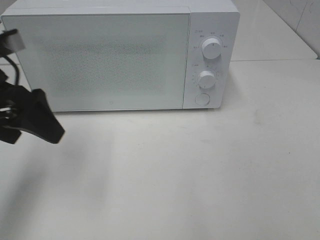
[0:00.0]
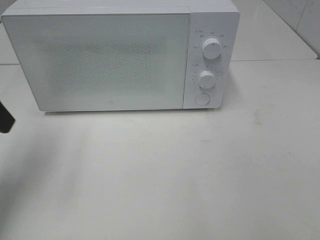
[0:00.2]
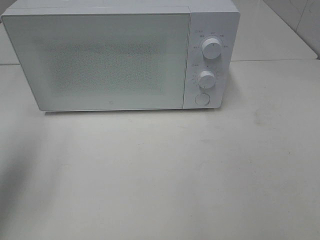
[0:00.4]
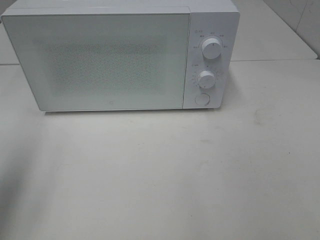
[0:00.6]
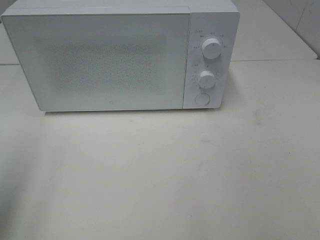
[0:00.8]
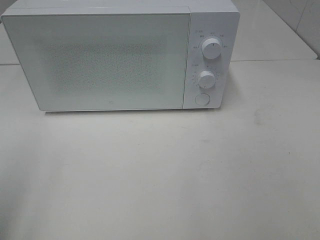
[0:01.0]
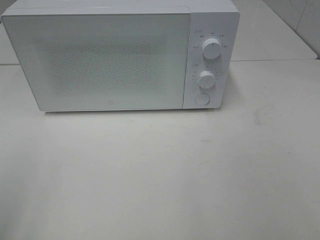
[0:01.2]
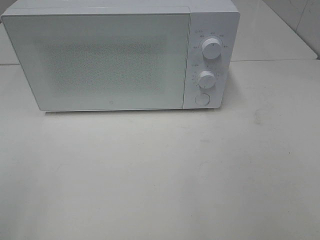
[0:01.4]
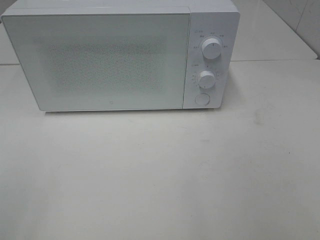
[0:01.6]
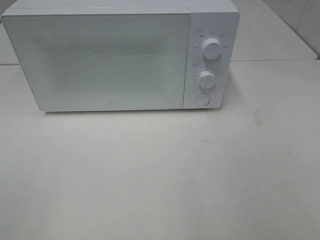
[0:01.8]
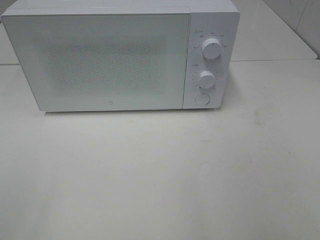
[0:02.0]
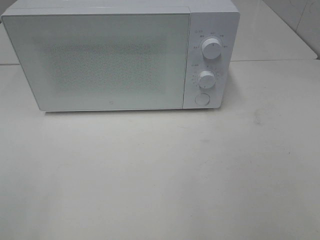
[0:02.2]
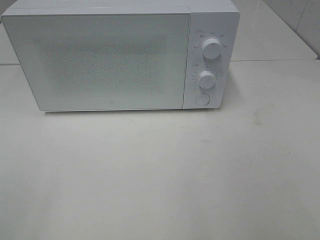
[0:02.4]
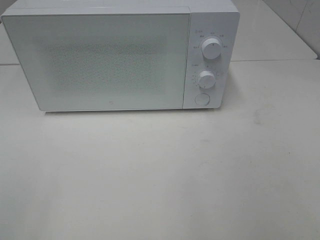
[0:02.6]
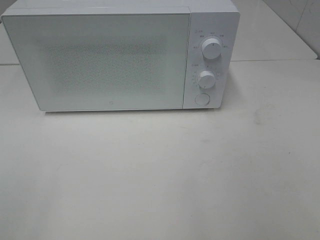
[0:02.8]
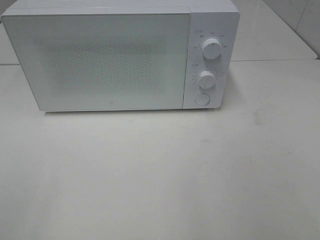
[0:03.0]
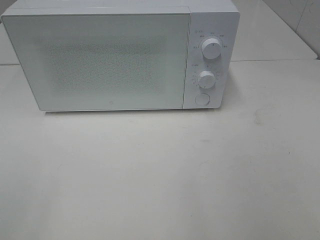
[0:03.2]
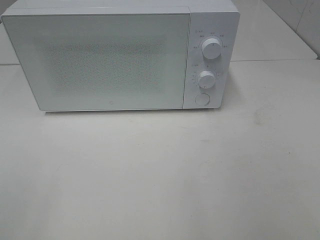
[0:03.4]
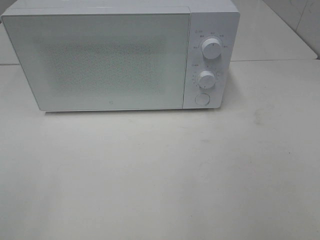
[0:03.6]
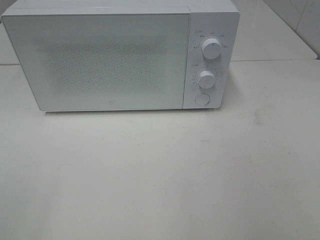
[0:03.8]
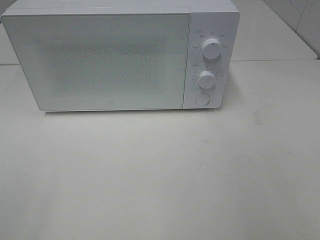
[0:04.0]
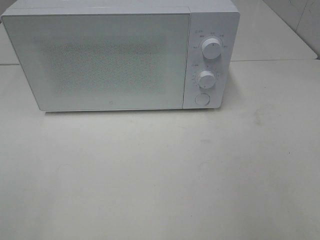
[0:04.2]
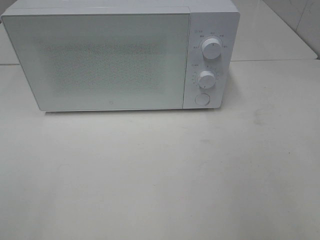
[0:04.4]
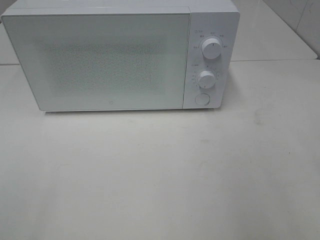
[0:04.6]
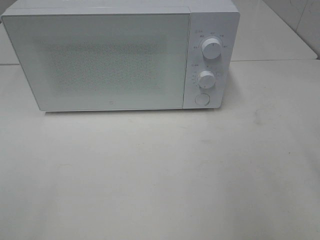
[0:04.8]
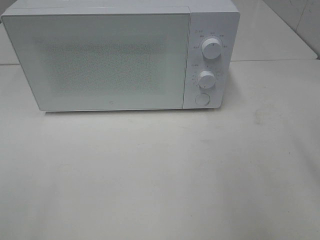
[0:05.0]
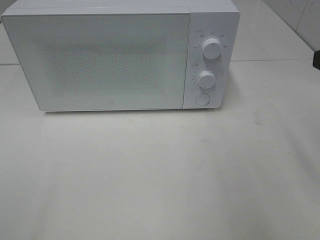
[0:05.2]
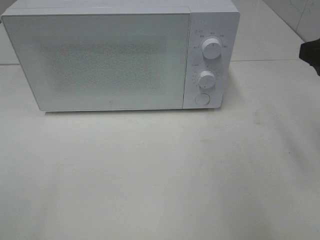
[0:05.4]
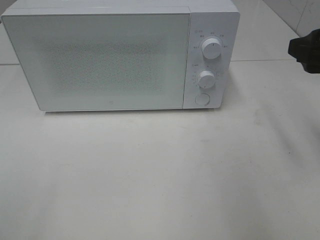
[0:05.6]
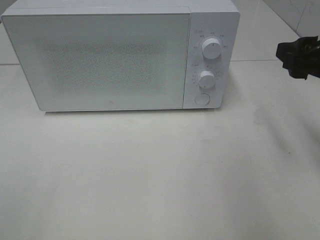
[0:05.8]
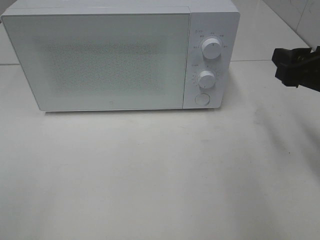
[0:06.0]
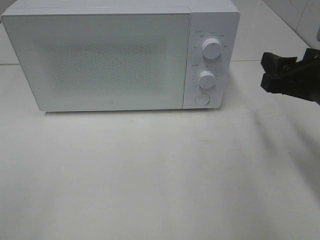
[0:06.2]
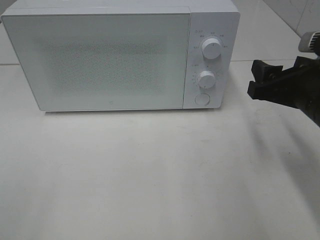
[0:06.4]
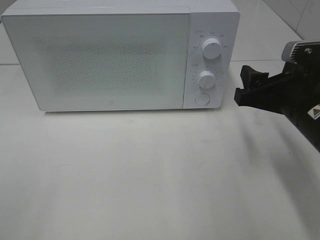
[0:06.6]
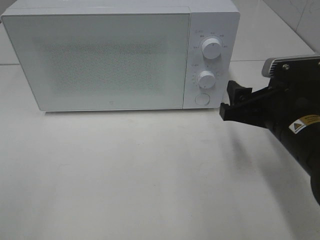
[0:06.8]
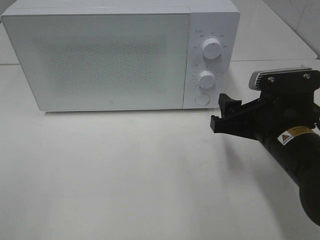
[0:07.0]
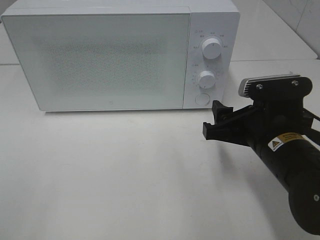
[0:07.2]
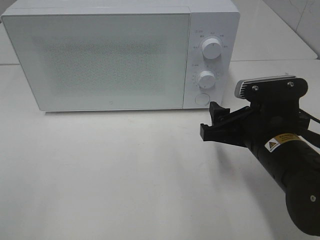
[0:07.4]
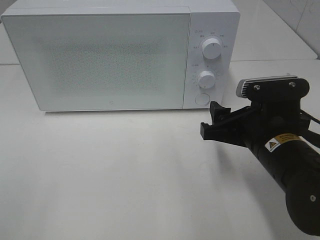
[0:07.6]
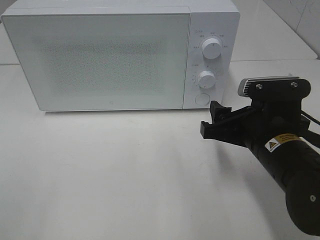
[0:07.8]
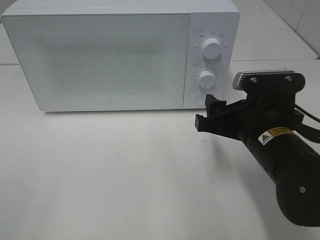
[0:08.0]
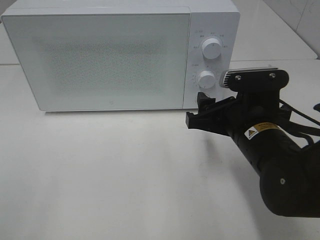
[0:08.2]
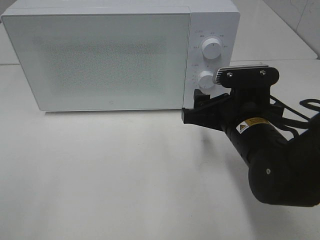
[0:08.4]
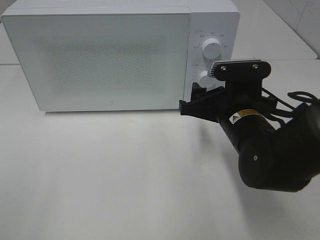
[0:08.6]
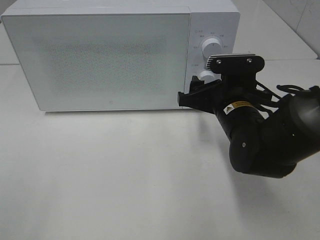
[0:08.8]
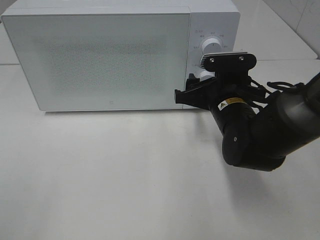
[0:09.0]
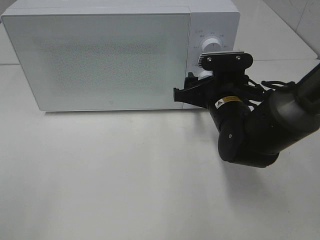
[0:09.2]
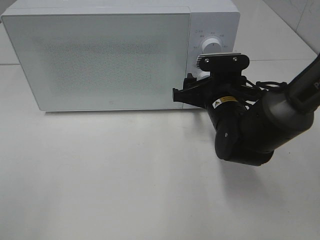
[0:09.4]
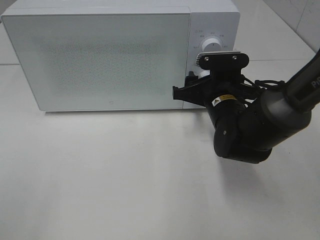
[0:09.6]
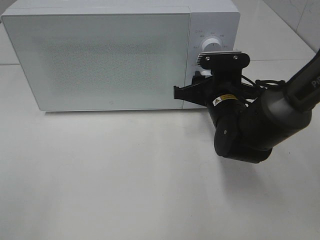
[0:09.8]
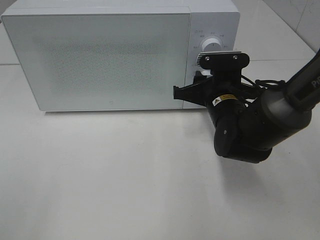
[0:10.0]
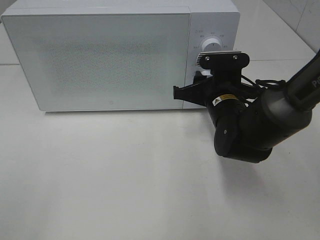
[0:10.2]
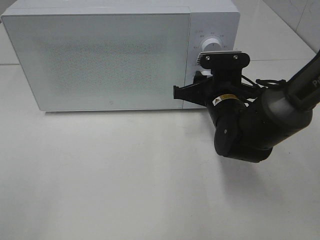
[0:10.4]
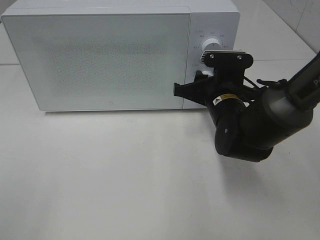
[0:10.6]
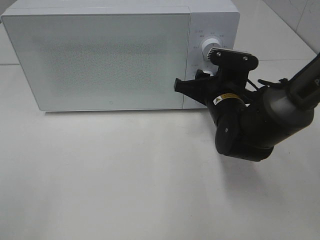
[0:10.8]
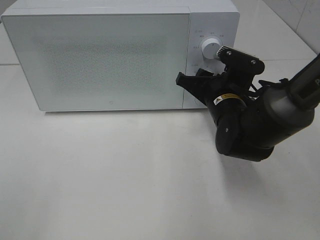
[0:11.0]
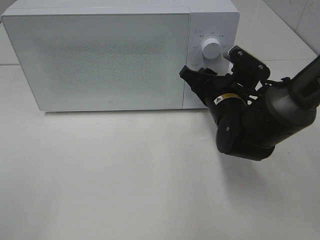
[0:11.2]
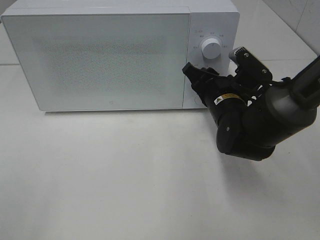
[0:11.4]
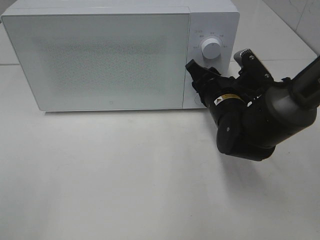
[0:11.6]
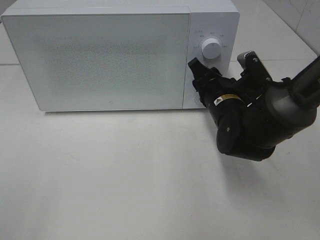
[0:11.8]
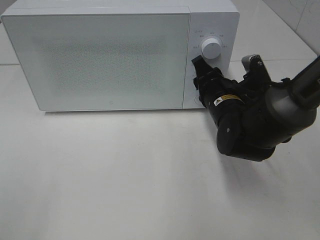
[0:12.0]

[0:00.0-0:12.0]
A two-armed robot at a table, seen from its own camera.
Task of the whole recording: Heat the burger.
0:00.0 to 0:01.6: The left gripper heads backward, covering about 25 cm.
0:04.4 to 0:06.0: The right gripper travels forward and downward by approximately 15 cm.
0:06.0 to 0:07.6: The right gripper shifts approximately 15 cm to the left and downward.
0:07.6 to 0:09.0: The right gripper is displaced forward by approximately 10 cm.
0:09.0 to 0:10.4: The right gripper closes its fingers.

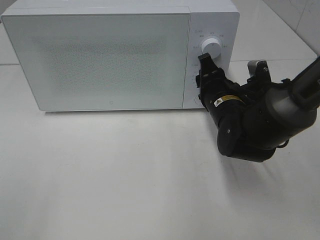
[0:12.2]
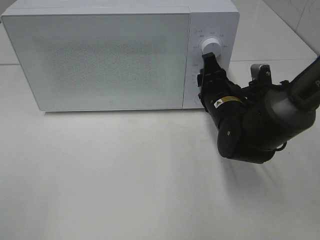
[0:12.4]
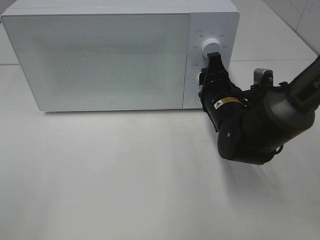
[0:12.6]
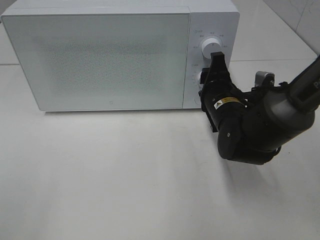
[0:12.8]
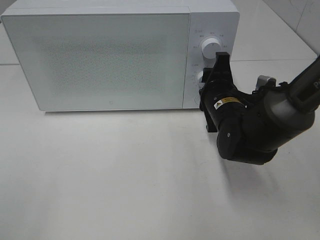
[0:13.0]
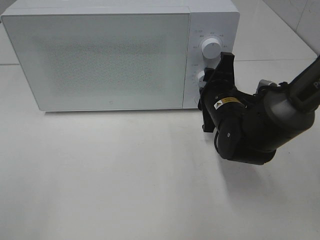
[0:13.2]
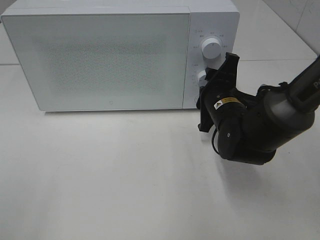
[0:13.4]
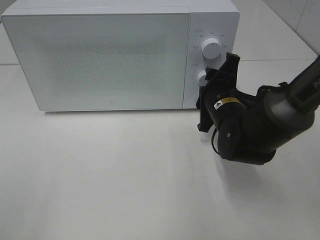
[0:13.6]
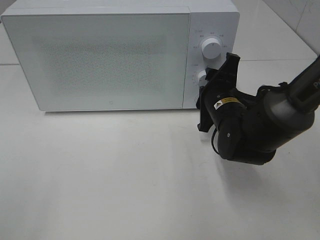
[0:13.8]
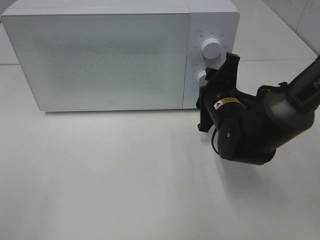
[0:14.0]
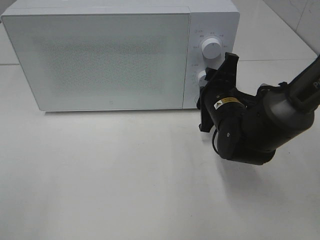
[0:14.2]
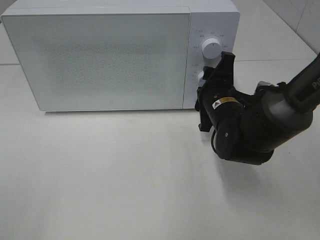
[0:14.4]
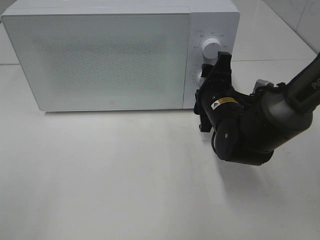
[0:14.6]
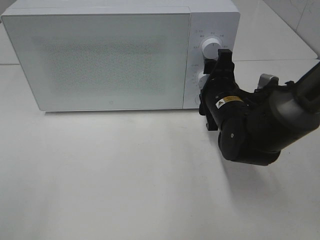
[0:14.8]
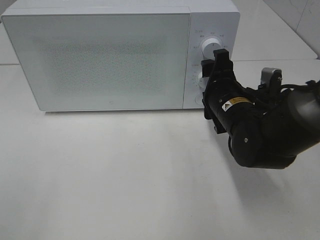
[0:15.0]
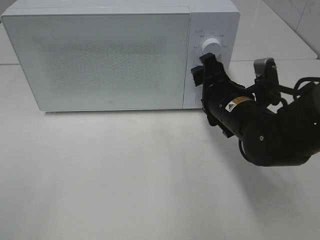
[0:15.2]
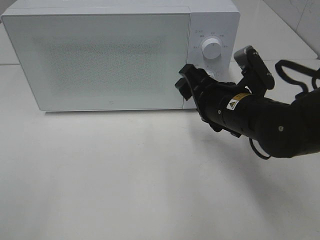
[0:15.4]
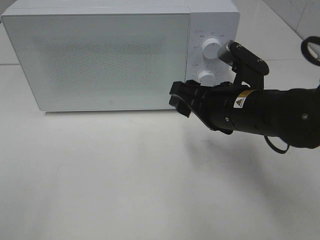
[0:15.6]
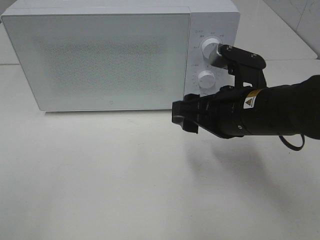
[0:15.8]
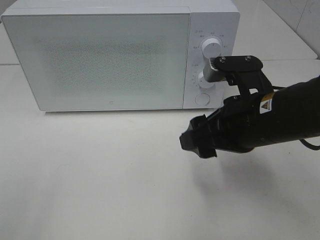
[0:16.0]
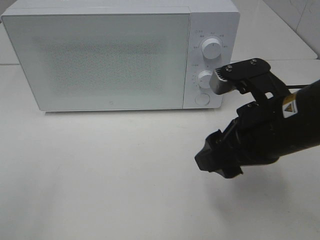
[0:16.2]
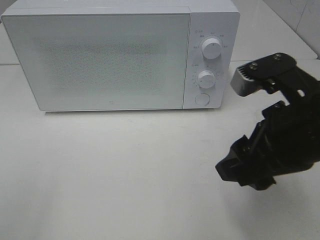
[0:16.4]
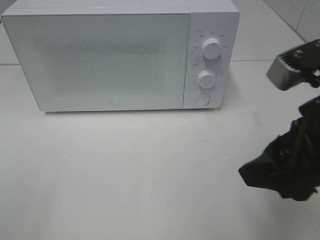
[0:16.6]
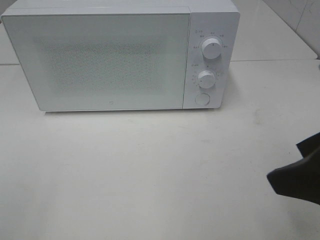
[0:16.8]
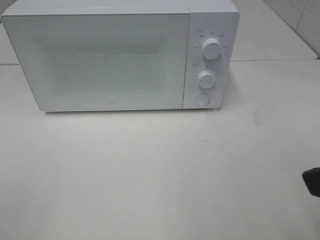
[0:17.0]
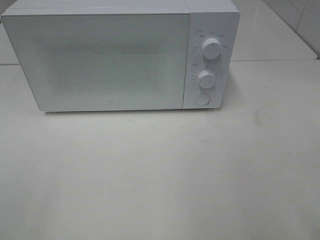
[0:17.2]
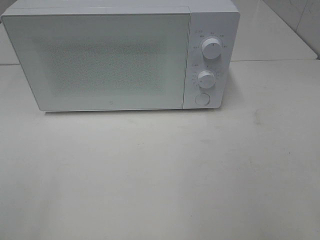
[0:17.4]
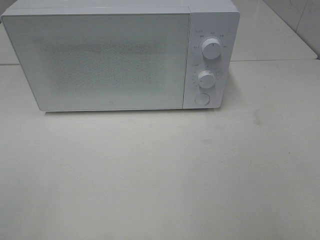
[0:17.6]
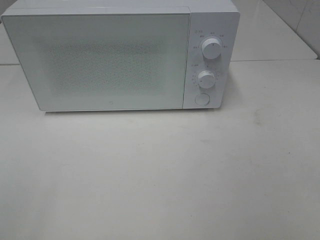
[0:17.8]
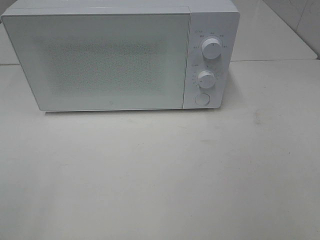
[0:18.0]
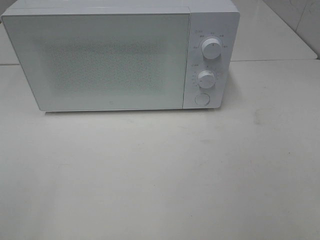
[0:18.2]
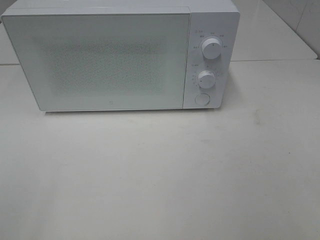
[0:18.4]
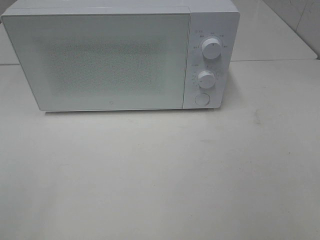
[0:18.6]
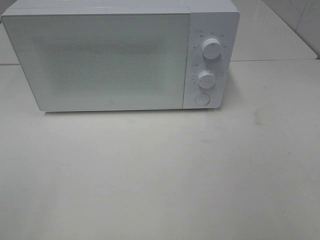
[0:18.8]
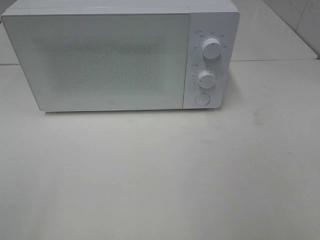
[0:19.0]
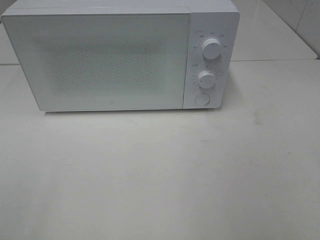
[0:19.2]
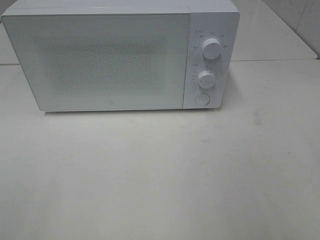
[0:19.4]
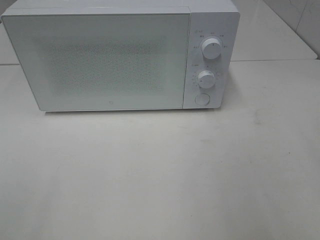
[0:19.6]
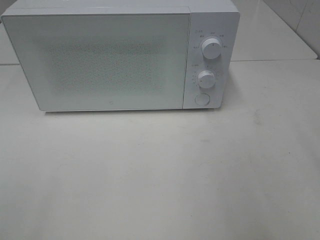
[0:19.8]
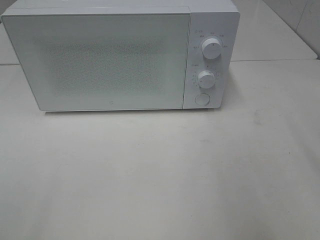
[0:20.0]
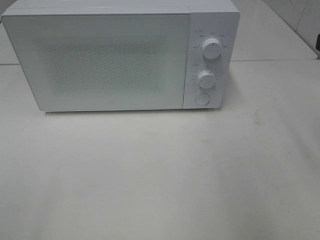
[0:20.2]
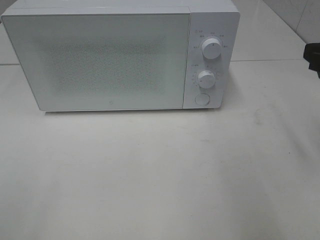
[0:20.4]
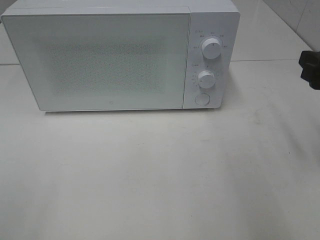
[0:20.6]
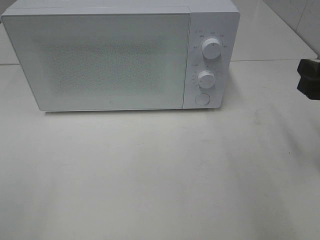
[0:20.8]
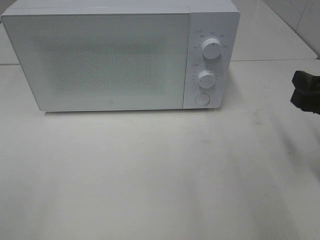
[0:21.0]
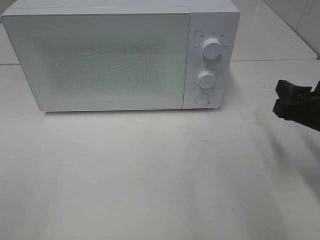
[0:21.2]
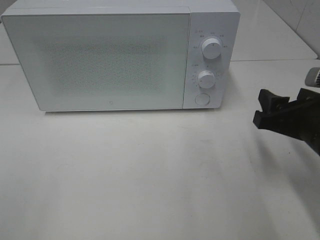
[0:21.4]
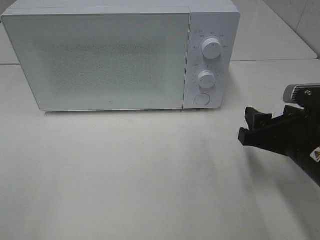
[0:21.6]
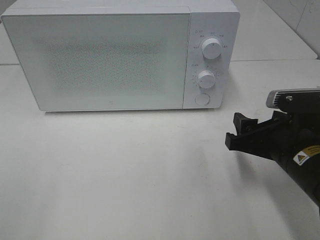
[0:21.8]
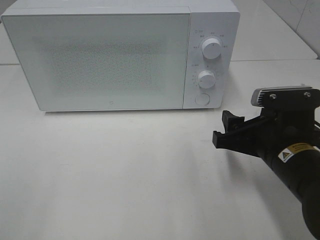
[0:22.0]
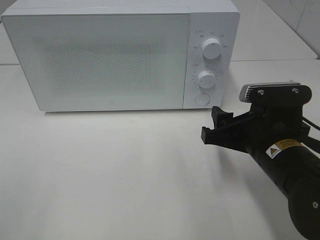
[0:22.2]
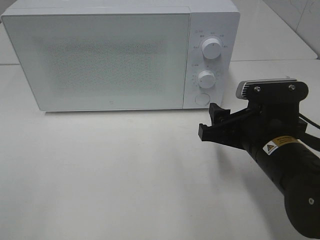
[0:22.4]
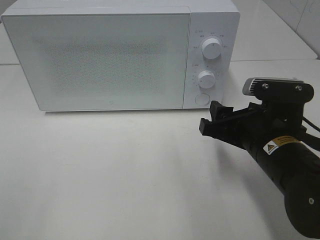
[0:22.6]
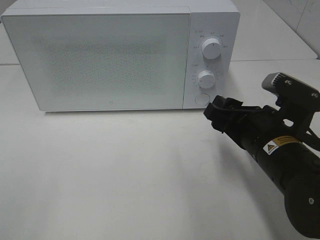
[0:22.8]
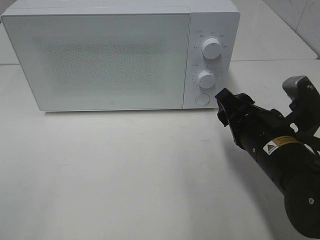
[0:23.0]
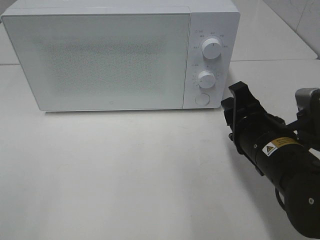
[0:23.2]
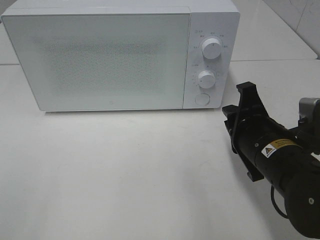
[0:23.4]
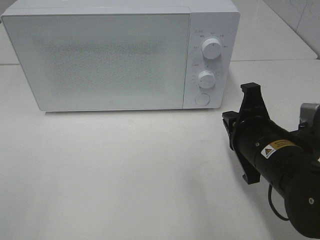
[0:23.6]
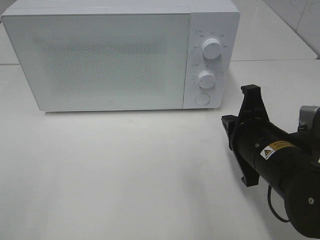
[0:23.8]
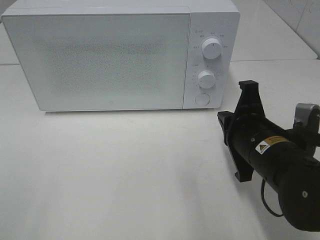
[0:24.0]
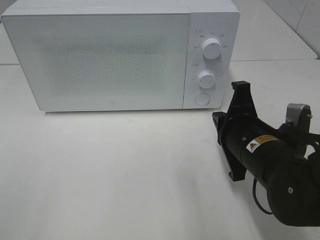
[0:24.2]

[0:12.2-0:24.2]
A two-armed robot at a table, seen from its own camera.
Task of the whole recording: Heat the burger.
Step, 0:12.2 to 0:14.6: Right hand: twist timer button.
0:15.2 to 0:16.6: The right gripper travels backward and upward by roughly 20 cm.
0:16.6 to 0:18.2: The right gripper is displaced backward and to the right by some 15 cm.
0:19.8 to 0:21.2: The right gripper shifts roughly 15 cm downward and forward.
0:21.2 to 0:22.6: The right gripper heads to the left, covering some 10 cm.
0:22.6 to 0:24.2: The right gripper closes its fingers.
